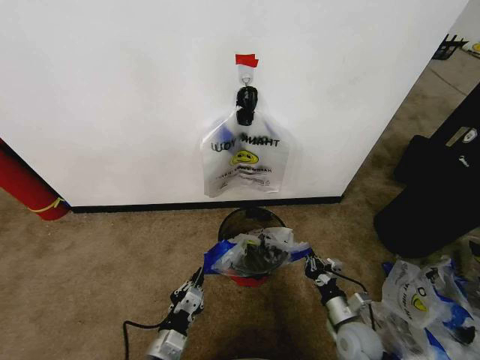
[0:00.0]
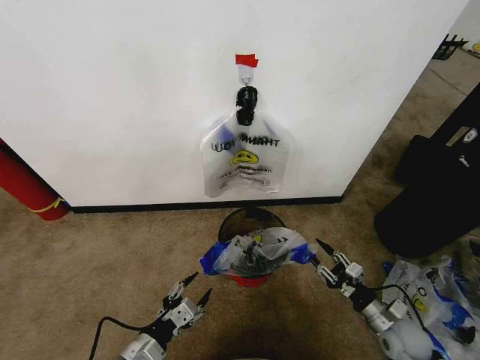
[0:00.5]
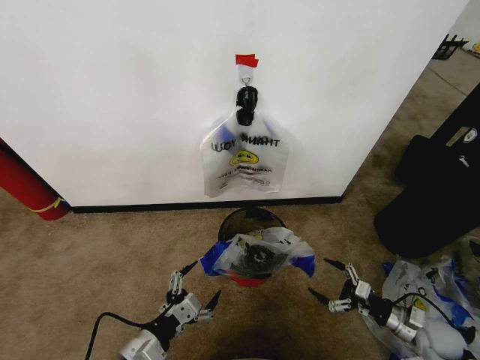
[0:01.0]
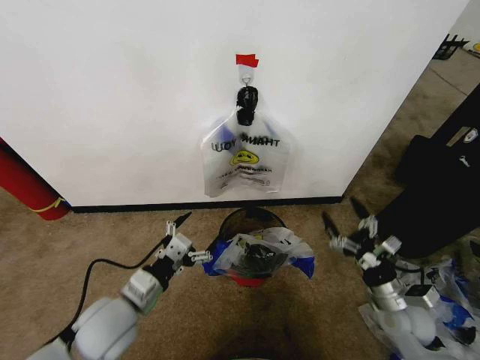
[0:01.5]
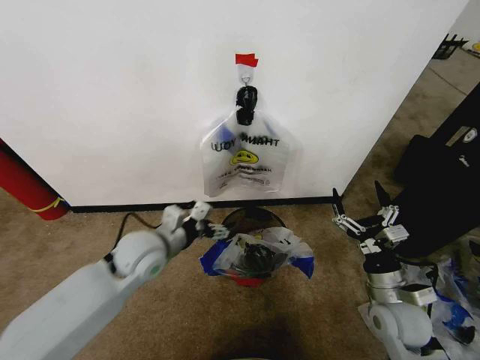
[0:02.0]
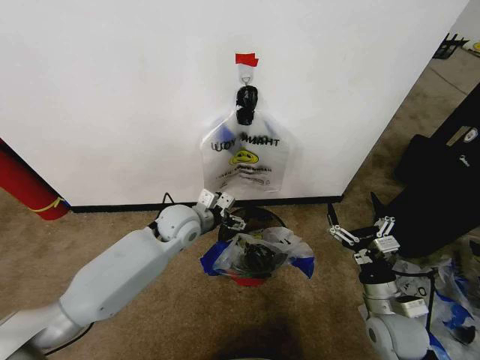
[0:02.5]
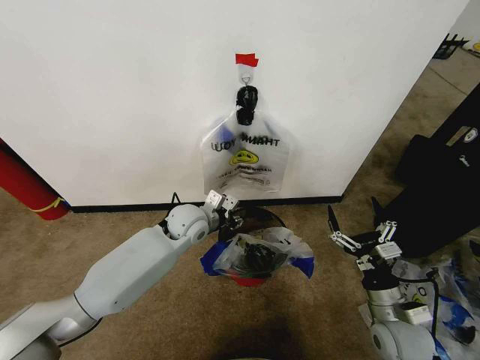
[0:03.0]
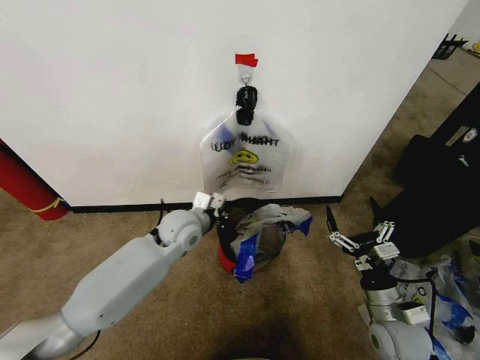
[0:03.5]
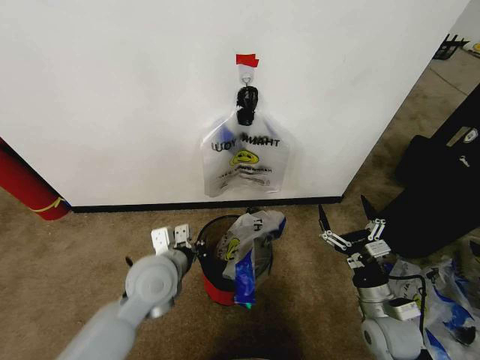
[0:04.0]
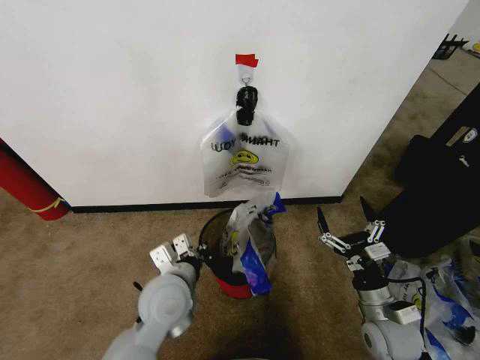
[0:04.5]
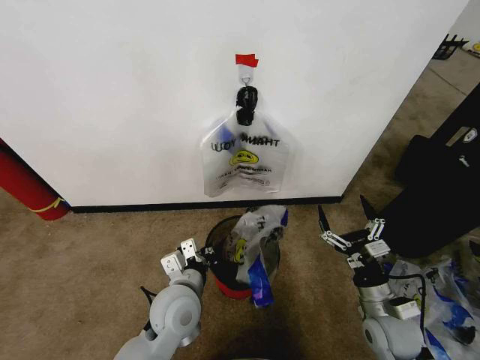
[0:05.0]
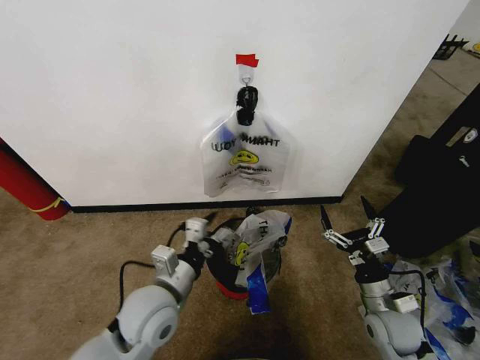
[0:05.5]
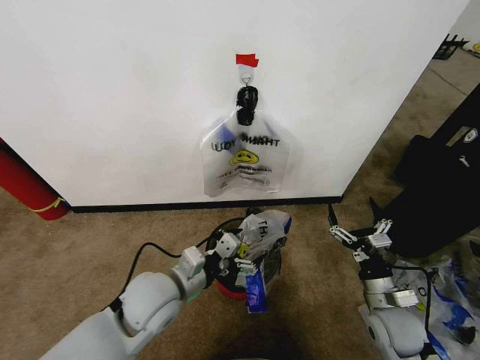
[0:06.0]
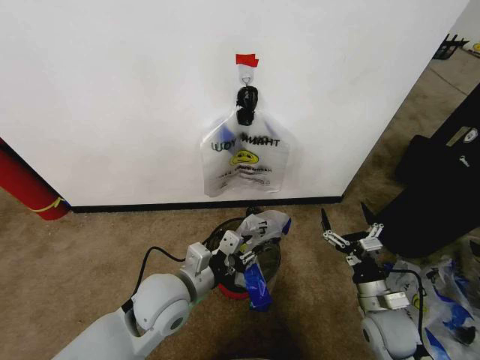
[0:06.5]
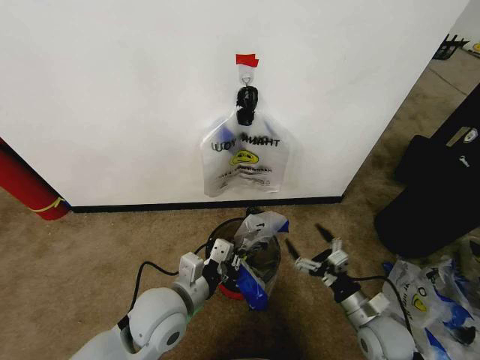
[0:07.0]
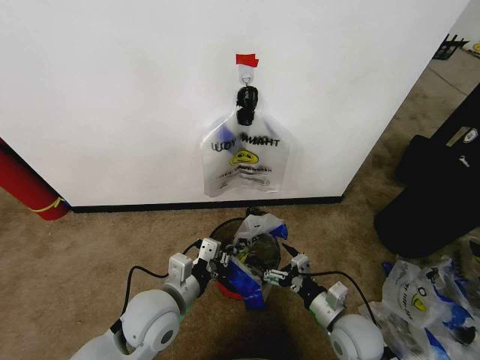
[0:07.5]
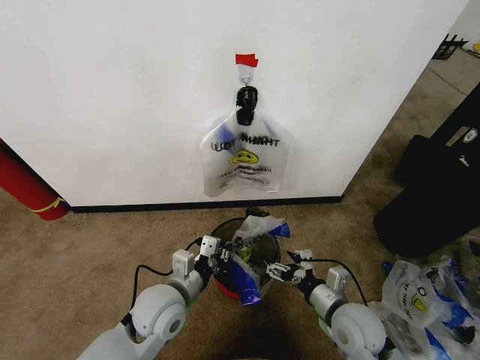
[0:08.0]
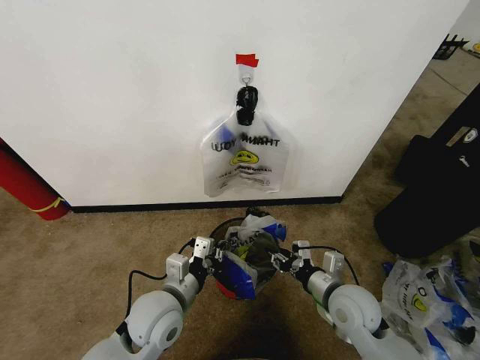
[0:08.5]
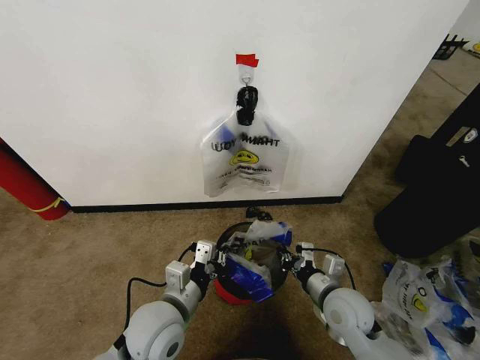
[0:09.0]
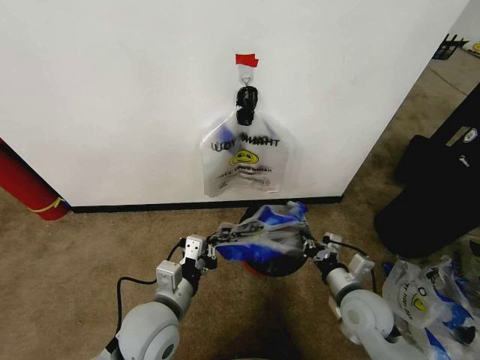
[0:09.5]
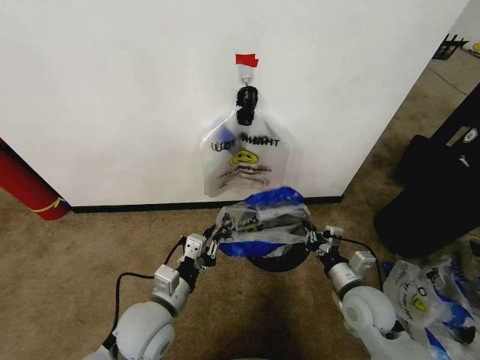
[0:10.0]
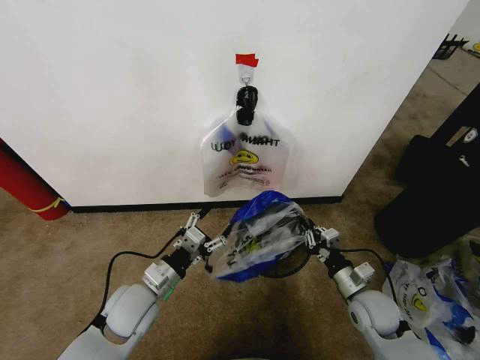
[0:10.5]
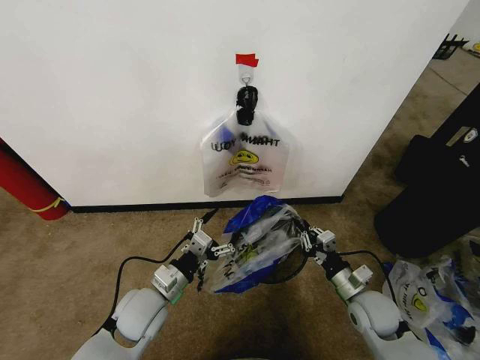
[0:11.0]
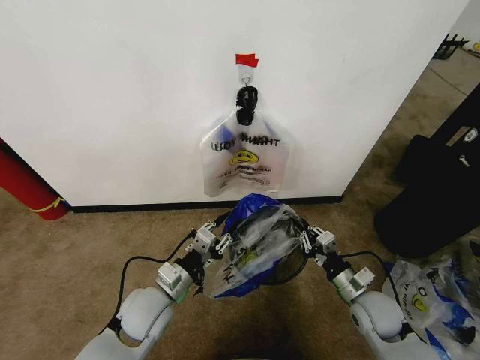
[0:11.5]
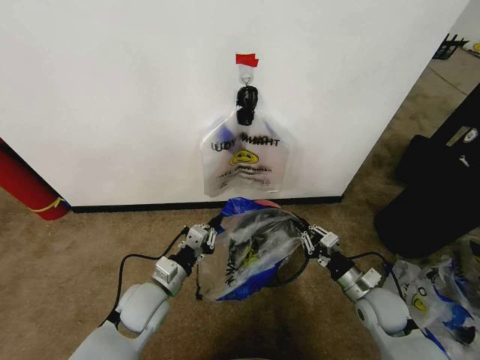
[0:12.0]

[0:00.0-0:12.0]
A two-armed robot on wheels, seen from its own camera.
Task of the whole recording: Pick up the garbage bag from the wall and place it over the trash bin.
0:00.0 to 0:02.0: The right gripper moves upward, some 15 cm, travels to the right and back again, approximately 20 cm each way, and opens its fingers, while the left gripper is displaced forward and upward by roughly 25 cm, and opens.
0:02.0 to 0:04.0: The left gripper is displaced backward by roughly 5 cm, and closes its fingers.
0:04.0 to 0:06.0: The left gripper opens.
0:06.0 to 0:08.0: The right gripper shifts roughly 10 cm to the left. The left gripper closes.
0:08.0 to 0:10.0: The right gripper closes up.
0:10.0 to 0:12.0: The right gripper moves to the right, approximately 5 cm. The left gripper heads forward, covering approximately 5 cm, and opens, then closes again.

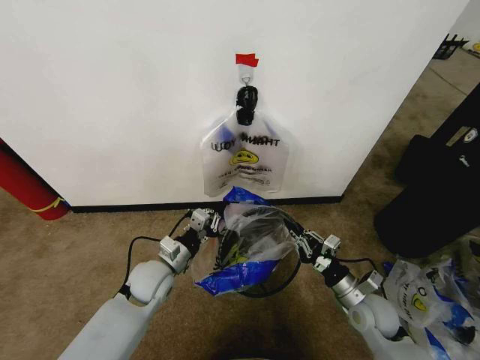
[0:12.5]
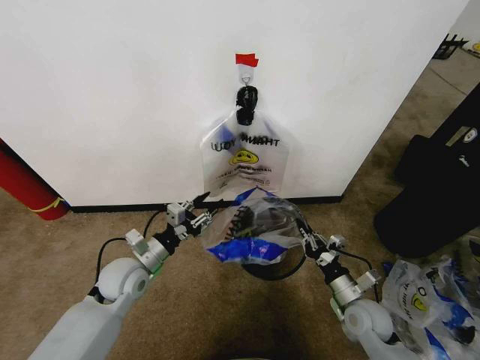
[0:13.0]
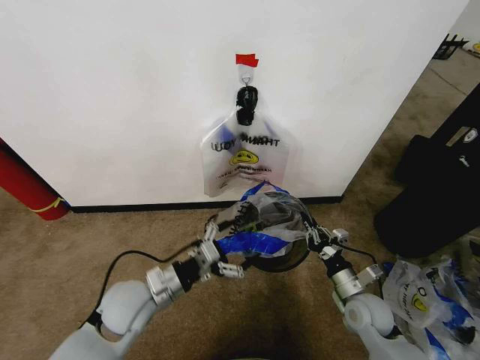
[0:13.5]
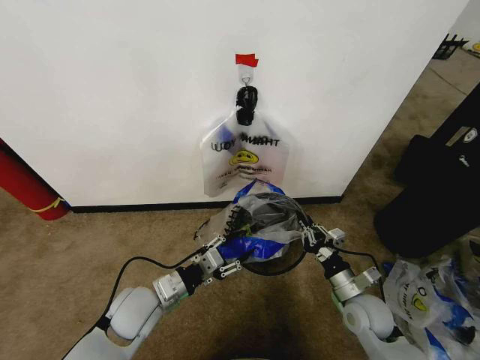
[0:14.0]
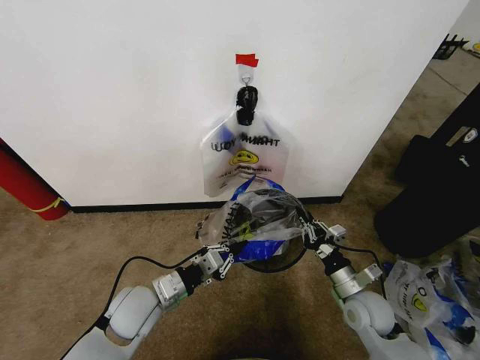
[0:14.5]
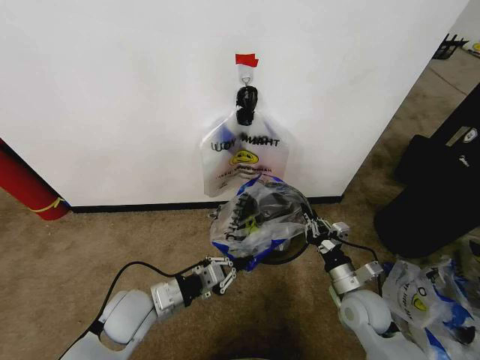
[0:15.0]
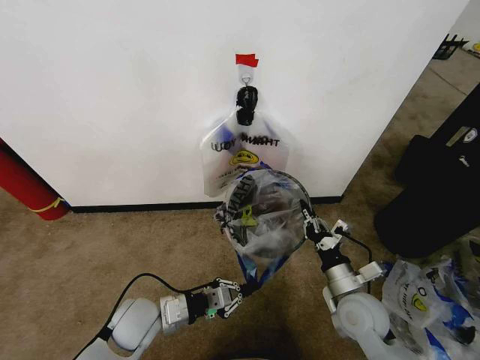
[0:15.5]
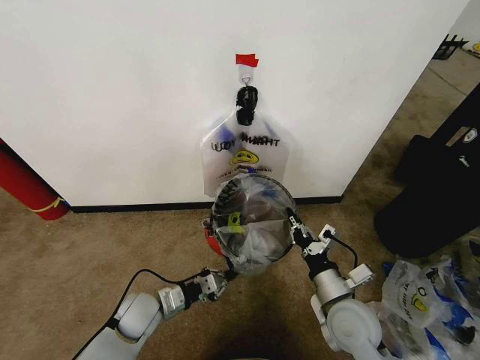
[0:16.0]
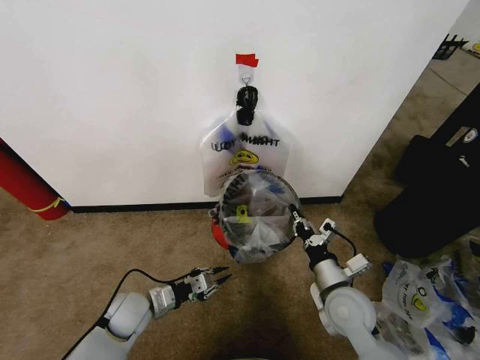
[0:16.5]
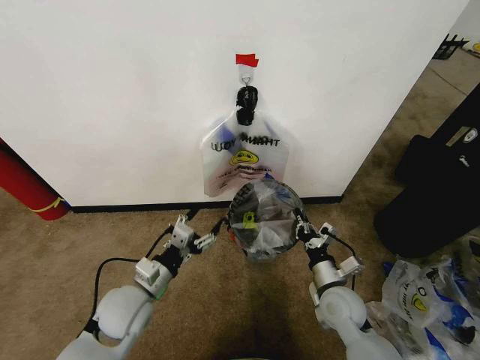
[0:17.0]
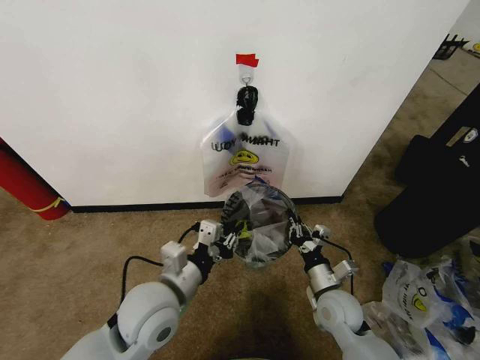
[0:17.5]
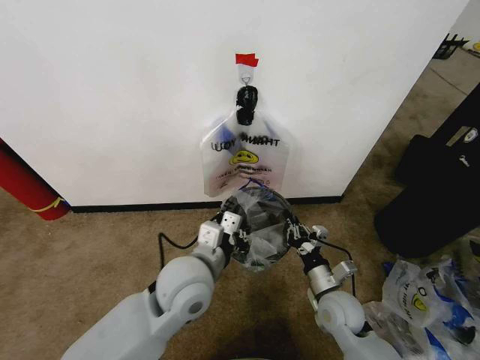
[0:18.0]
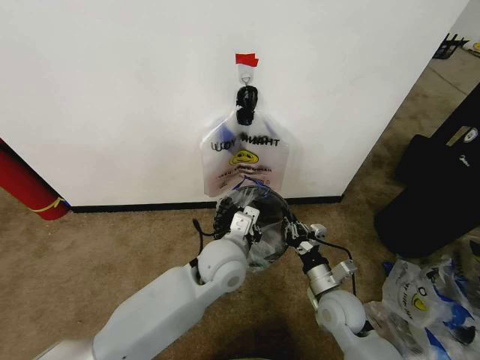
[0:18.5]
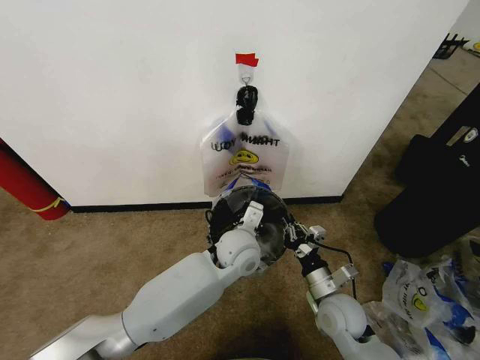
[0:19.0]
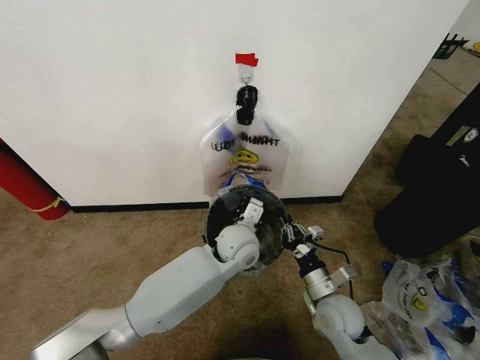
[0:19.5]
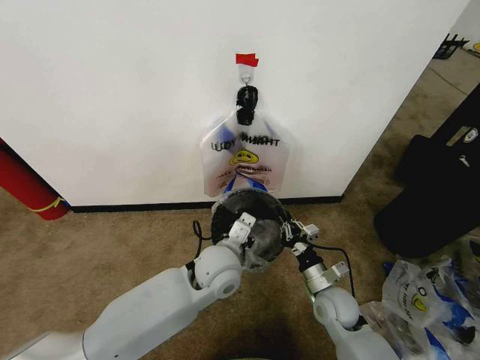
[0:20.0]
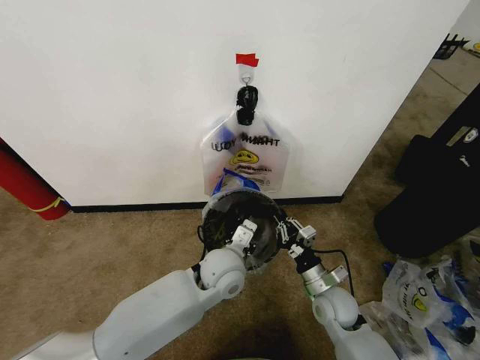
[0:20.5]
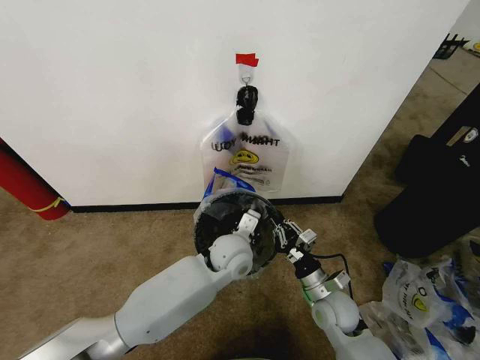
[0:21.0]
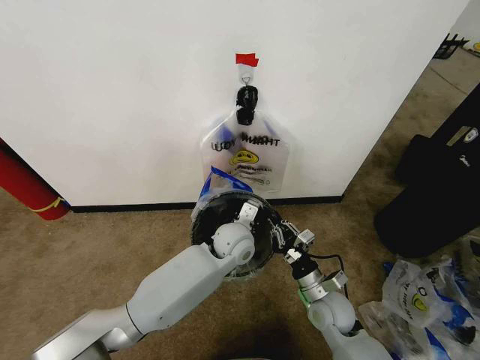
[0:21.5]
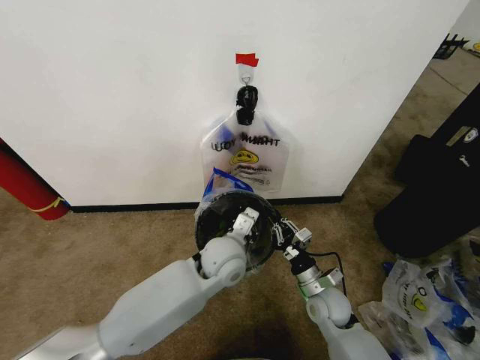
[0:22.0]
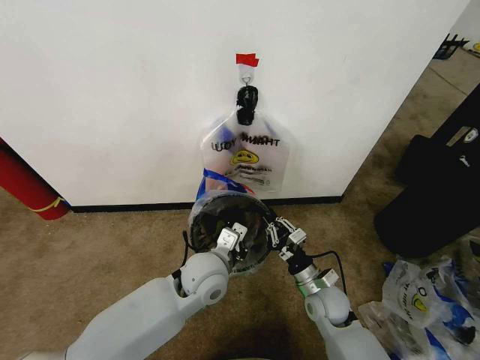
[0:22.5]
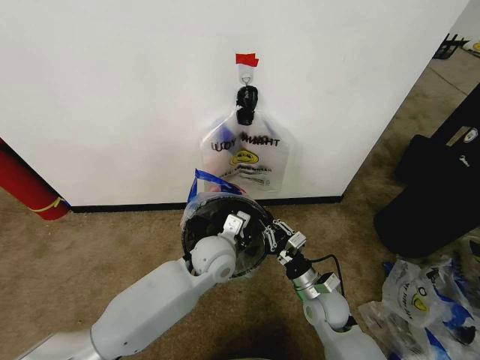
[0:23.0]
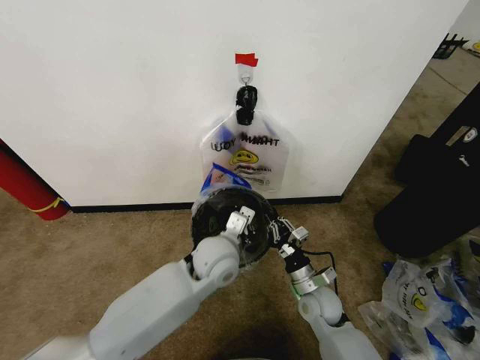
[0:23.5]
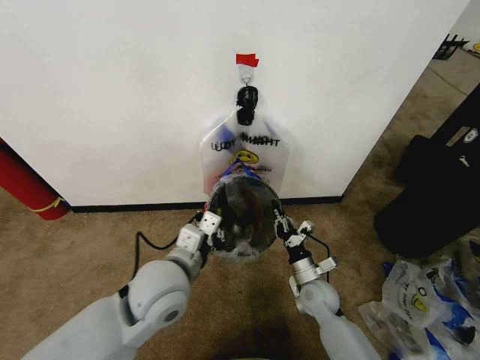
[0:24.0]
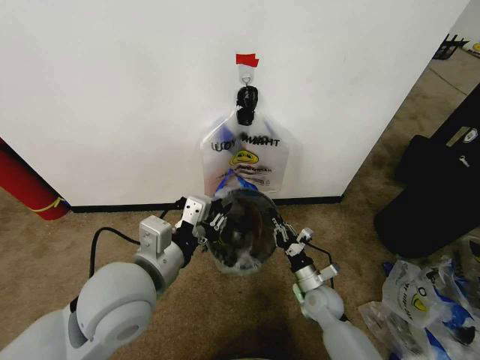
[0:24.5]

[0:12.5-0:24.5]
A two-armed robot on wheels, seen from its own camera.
Task of the whole recording: Pick up the garbage bag from the wall and place it over the trash bin.
0:12.5 to 0:14.5: The left gripper moves backward, roughly 5 cm, and opens, then closes once more.
0:14.5 to 0:16.5: The right gripper moves to the left, some 5 cm, while the left gripper heads downward, covering some 10 cm.
0:16.5 to 0:18.5: The right gripper is displaced downward by about 5 cm. The left gripper travels to the right and upward by about 30 cm, and opens, then closes again.
0:20.5 to 0:22.5: The left gripper goes forward and returns, approximately 5 cm each way.
0:22.5 to 0:24.5: The right gripper goes some 5 cm downward. The left gripper travels upward, to the left and backward by some 20 cm.

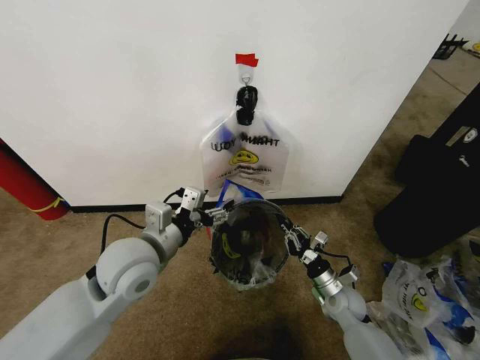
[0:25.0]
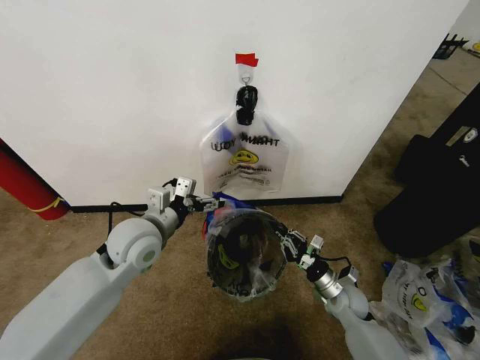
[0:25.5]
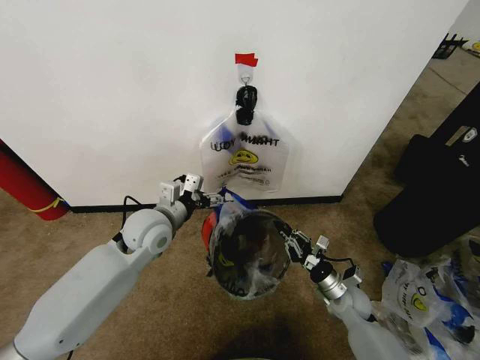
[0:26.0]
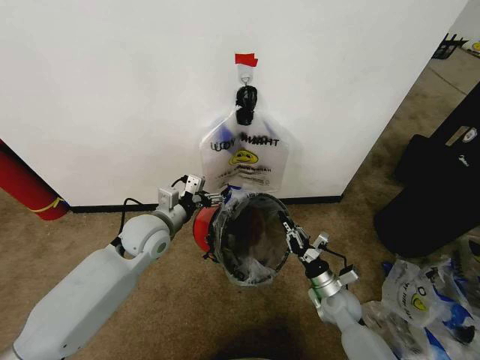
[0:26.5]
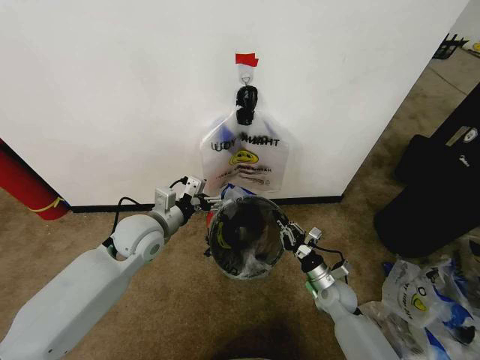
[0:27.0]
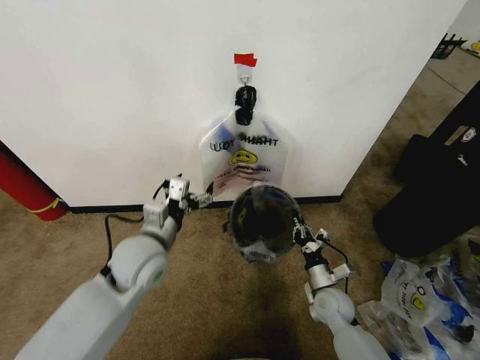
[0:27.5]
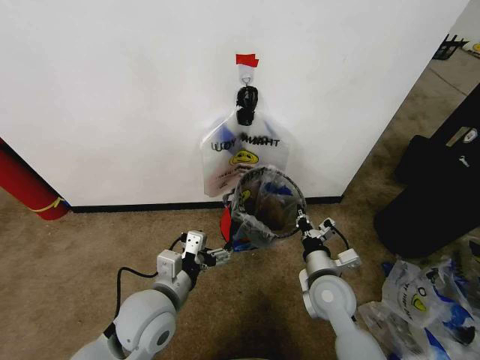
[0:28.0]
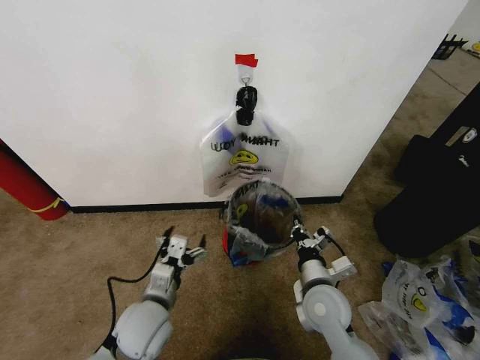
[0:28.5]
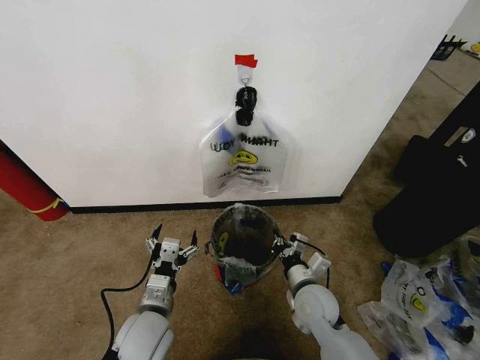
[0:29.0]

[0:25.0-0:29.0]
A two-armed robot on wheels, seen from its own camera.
Task of the whole recording: Pick up the garbage bag from the wall and place it over the trash bin.
0:25.0 to 0:27.0: The left gripper goes about 10 cm forward.
0:27.0 to 0:29.0: The right gripper is displaced to the left, upward and backward by about 15 cm. The left gripper travels backward and downward by roughly 20 cm.
